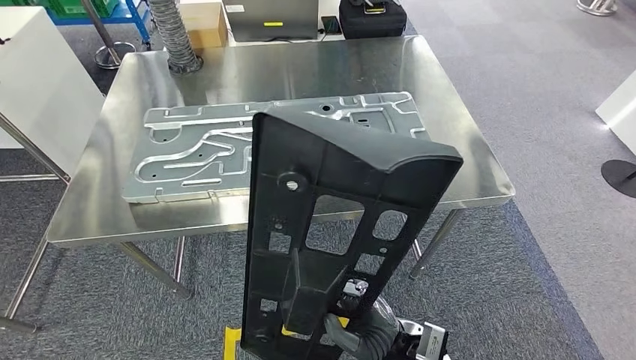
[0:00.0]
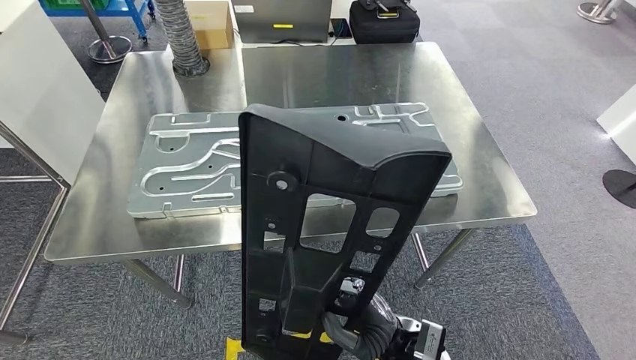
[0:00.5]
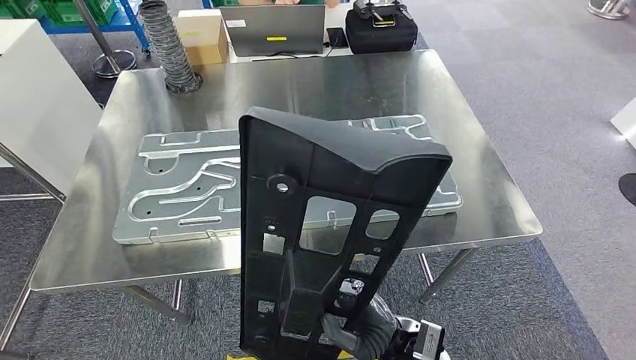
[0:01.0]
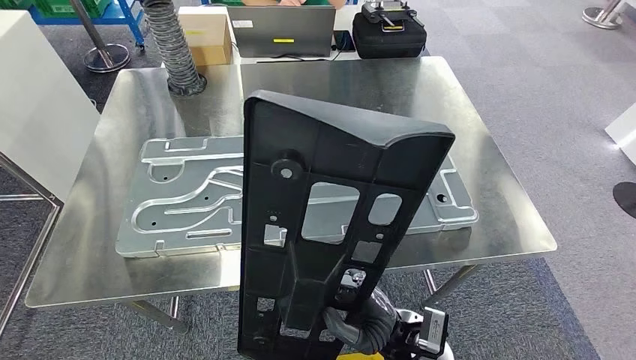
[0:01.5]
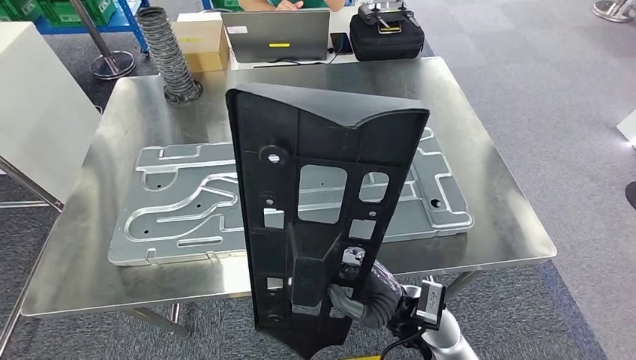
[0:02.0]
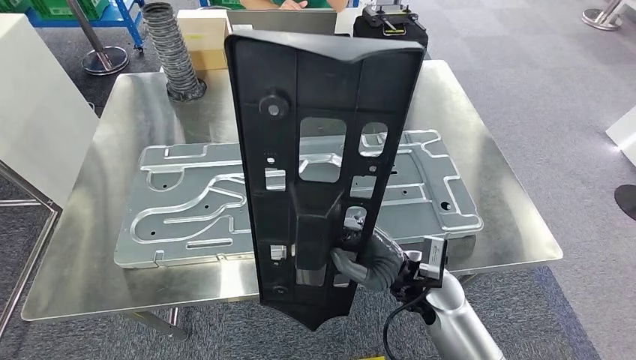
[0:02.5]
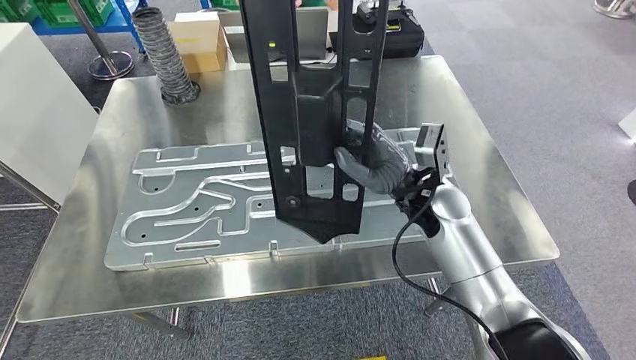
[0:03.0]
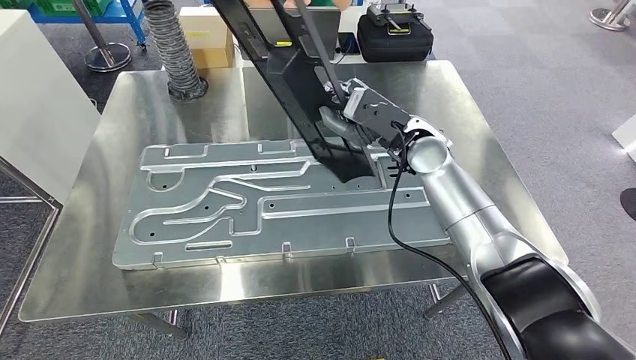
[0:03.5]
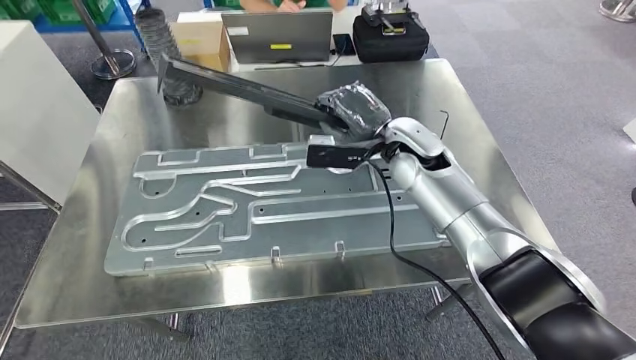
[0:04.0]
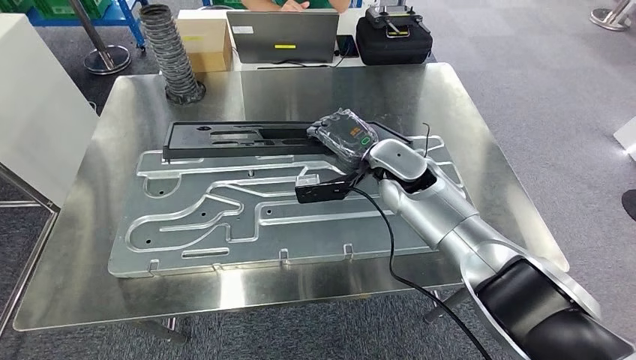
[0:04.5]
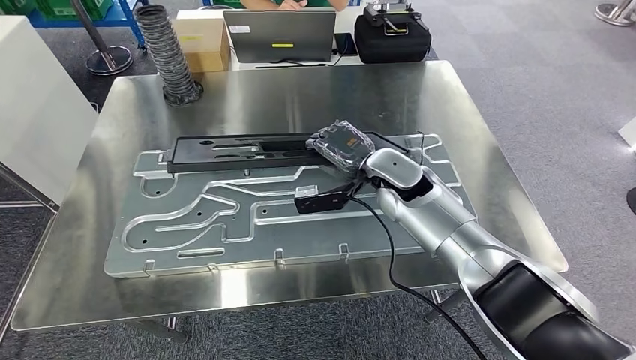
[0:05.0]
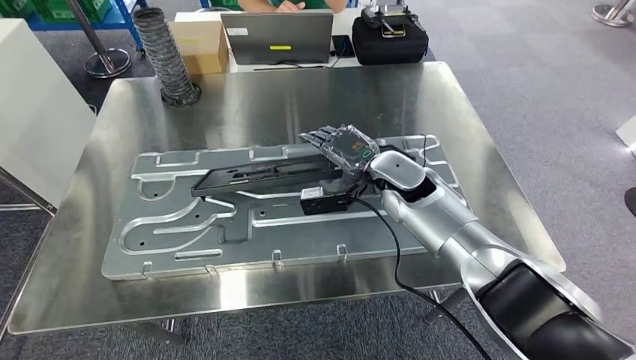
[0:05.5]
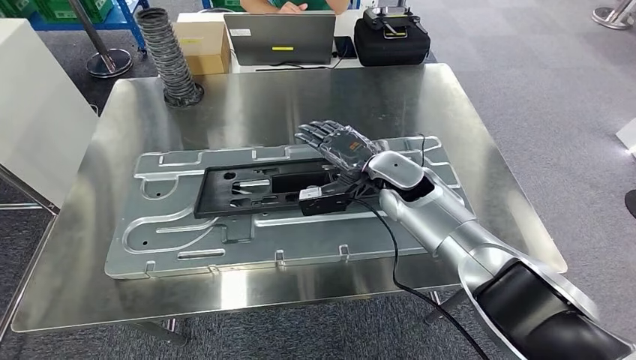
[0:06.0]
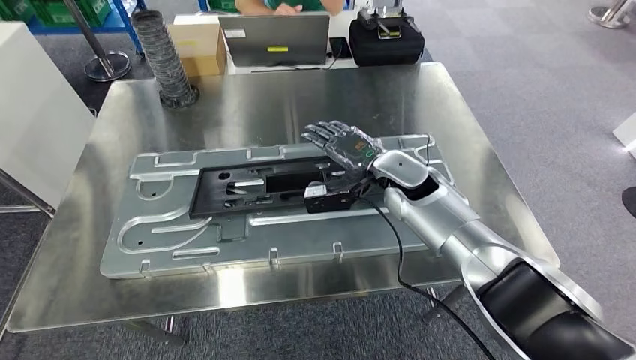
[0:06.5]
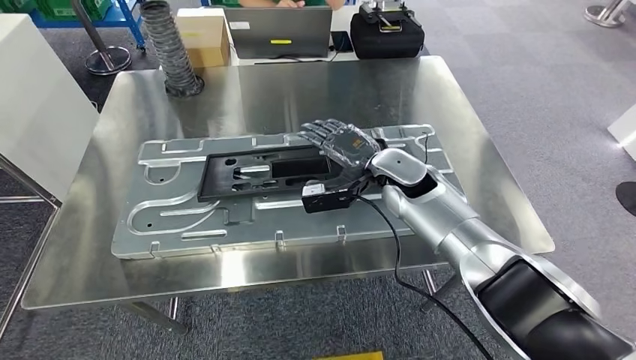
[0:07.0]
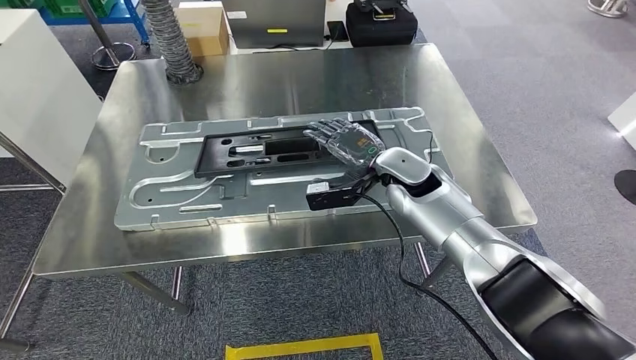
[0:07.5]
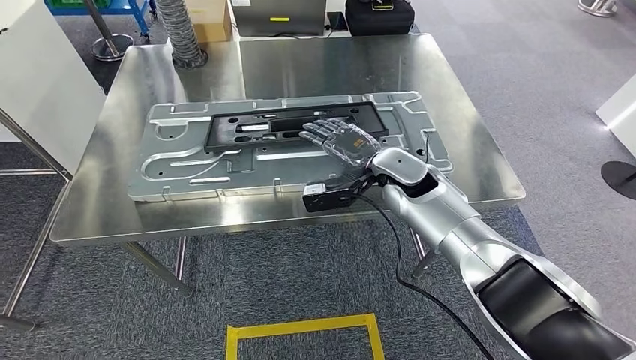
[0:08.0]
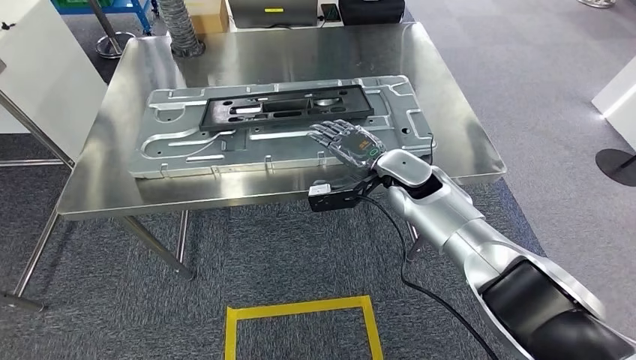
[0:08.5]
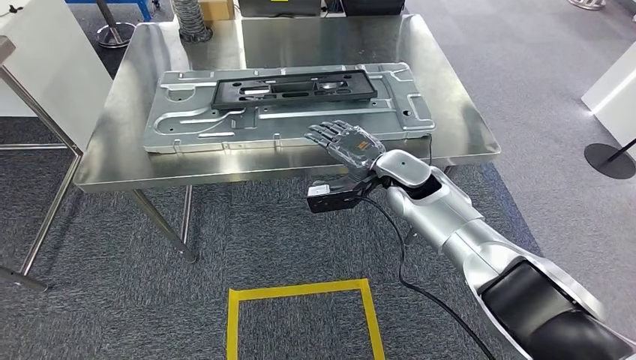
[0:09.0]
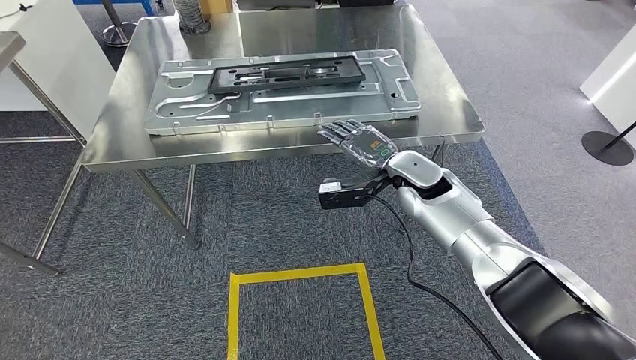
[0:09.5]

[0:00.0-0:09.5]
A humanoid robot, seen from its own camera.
Step, 0:00.0 to 0:07.0: Insert the large material into the corresponding slot on the workbench.

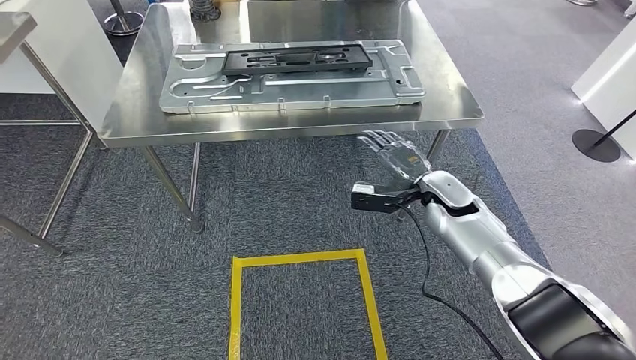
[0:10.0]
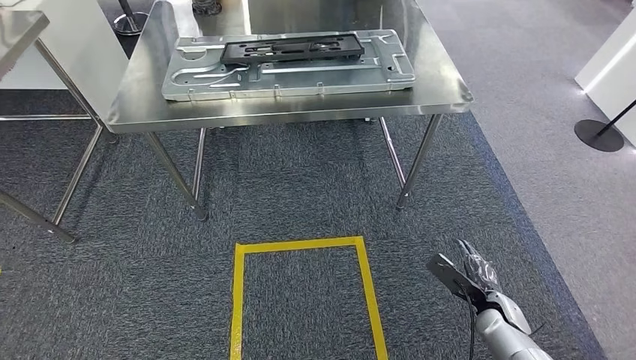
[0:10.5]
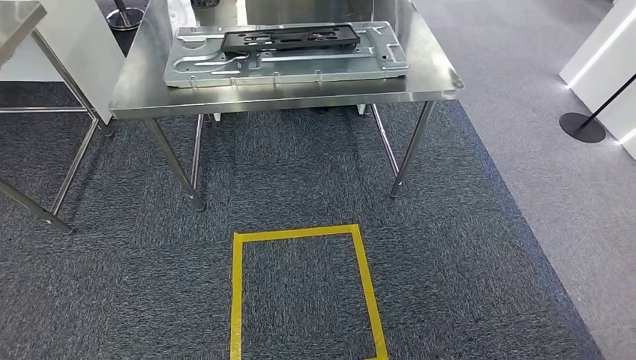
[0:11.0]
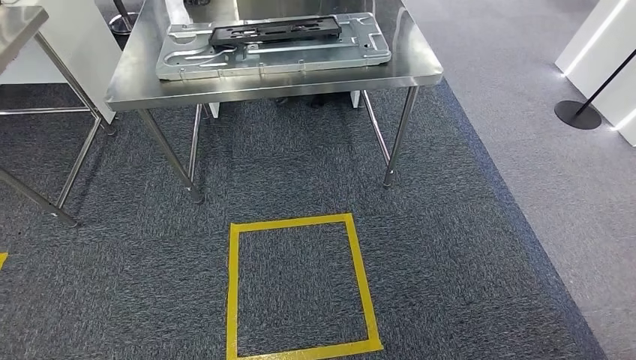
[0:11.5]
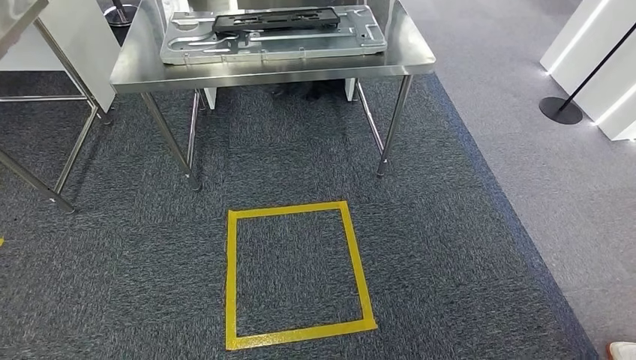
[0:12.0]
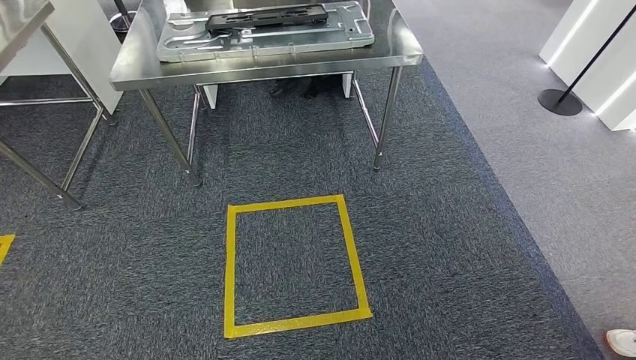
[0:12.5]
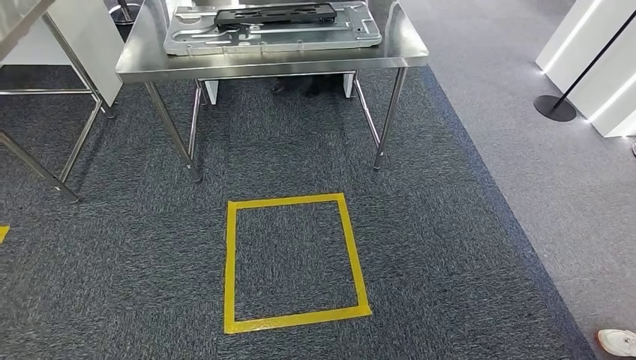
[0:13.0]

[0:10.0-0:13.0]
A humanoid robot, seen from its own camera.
Step, 0:10.0 to 0:13.0: Move to the initial position of the shelf.
